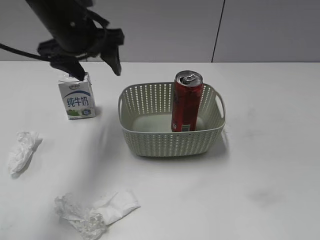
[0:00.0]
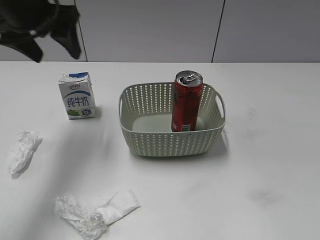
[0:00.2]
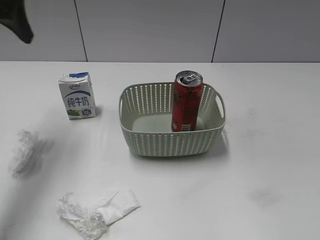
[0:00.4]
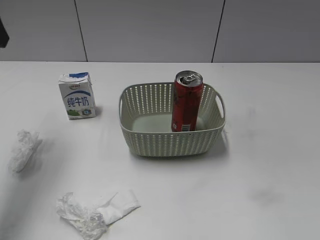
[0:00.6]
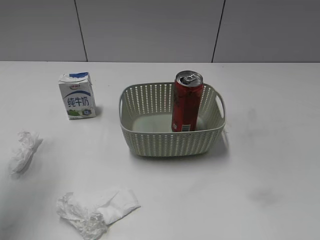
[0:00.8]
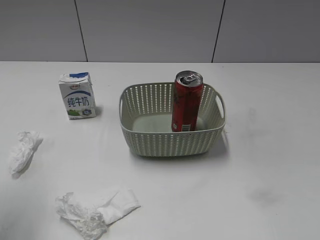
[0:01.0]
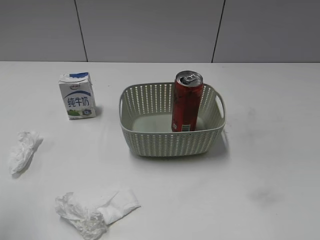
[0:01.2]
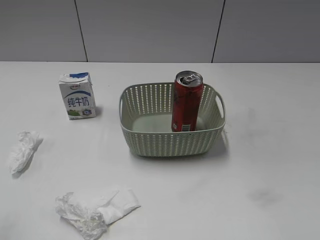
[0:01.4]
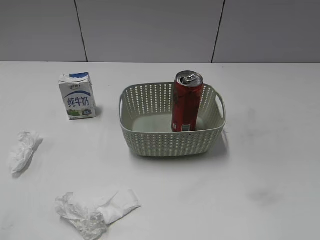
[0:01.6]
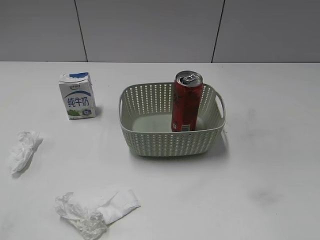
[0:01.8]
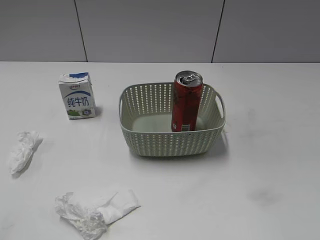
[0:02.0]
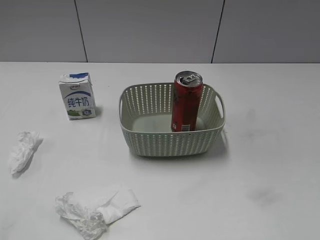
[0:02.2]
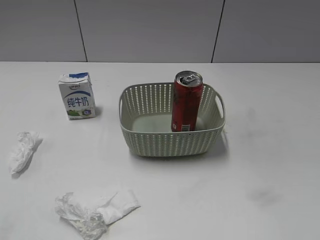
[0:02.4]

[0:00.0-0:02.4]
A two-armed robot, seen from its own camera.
0:00.0 to 0:01.2: The left gripper shifts approximately 30 cm backward and to the left.
